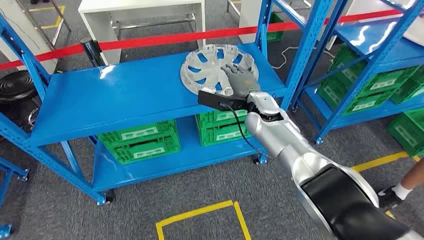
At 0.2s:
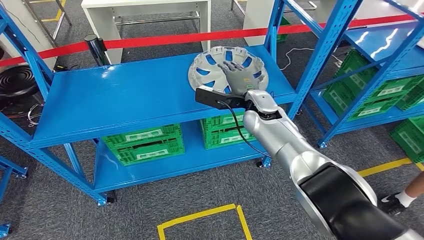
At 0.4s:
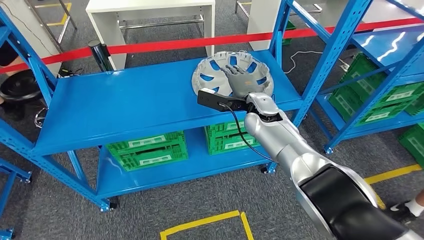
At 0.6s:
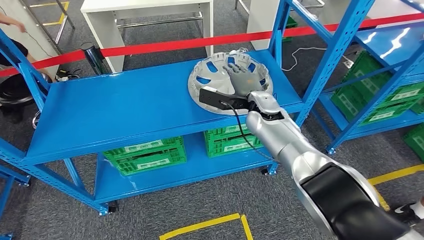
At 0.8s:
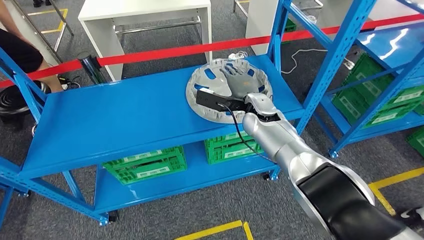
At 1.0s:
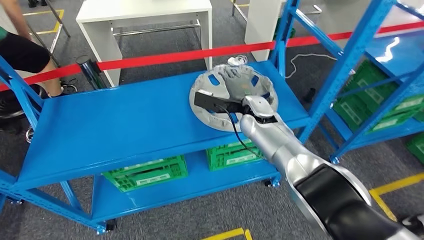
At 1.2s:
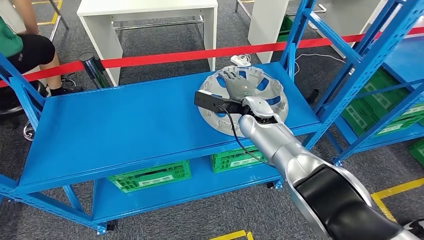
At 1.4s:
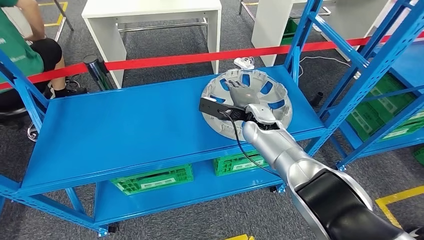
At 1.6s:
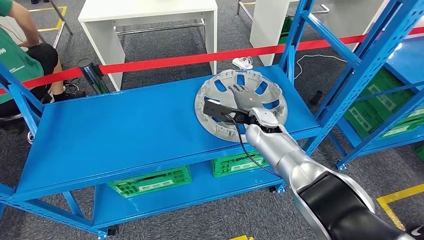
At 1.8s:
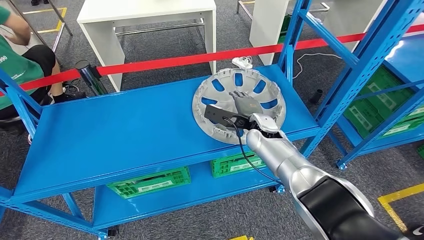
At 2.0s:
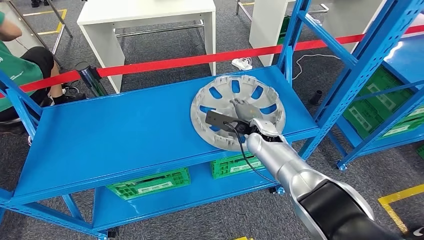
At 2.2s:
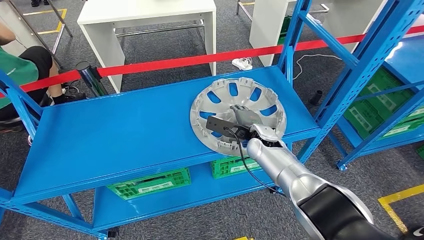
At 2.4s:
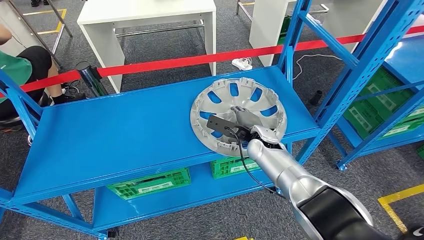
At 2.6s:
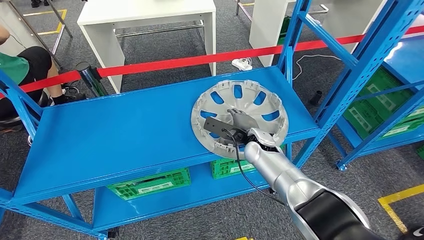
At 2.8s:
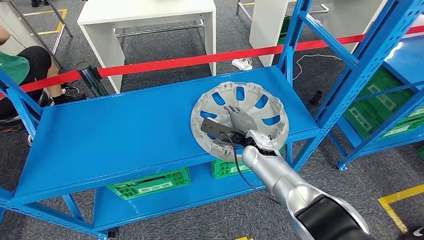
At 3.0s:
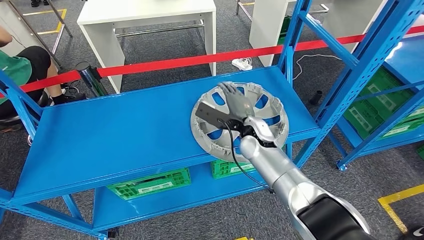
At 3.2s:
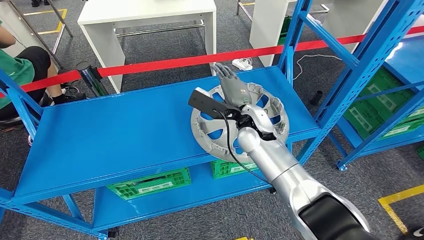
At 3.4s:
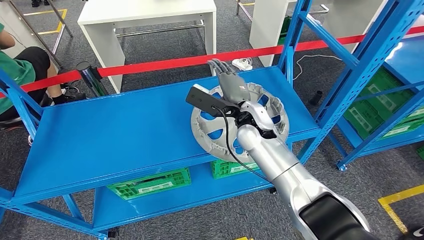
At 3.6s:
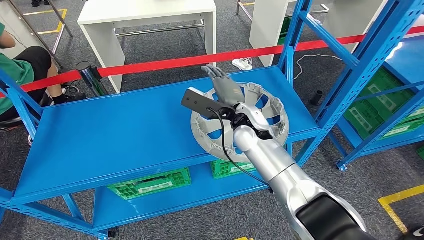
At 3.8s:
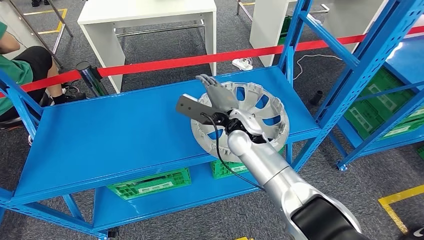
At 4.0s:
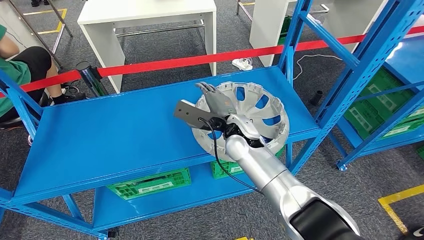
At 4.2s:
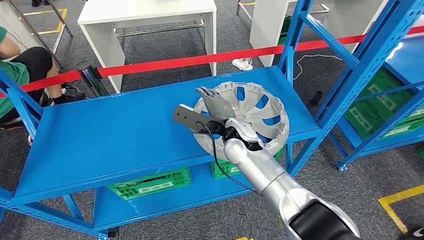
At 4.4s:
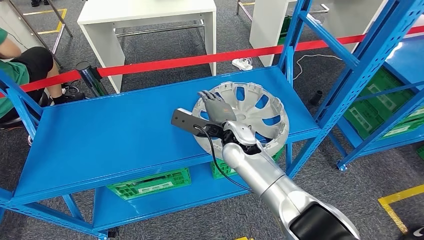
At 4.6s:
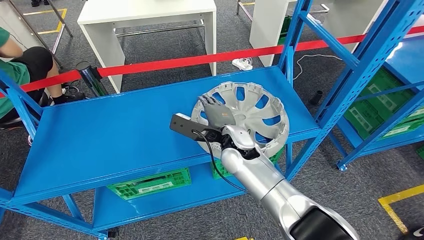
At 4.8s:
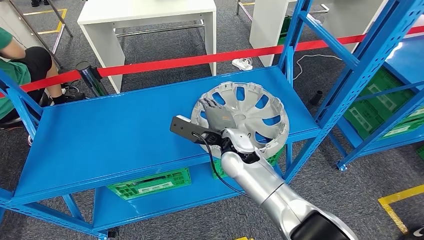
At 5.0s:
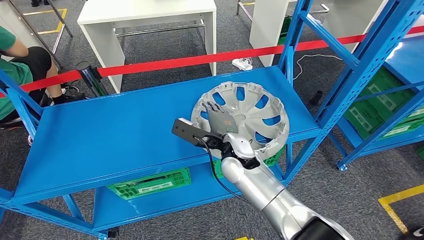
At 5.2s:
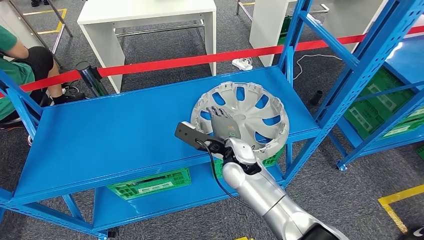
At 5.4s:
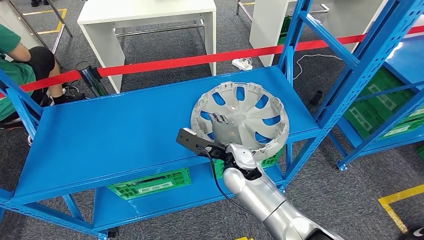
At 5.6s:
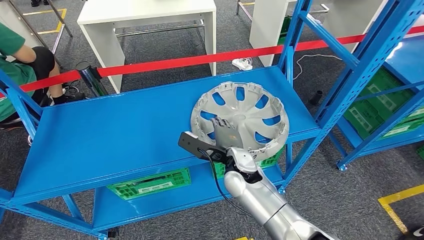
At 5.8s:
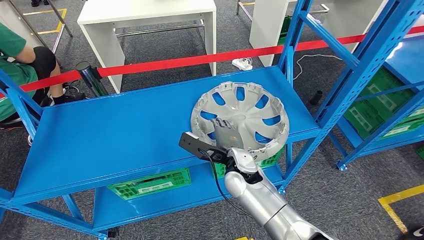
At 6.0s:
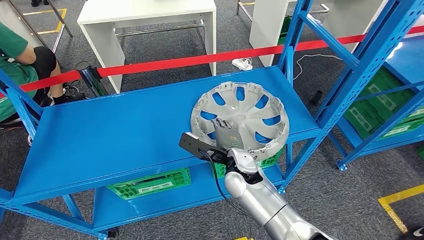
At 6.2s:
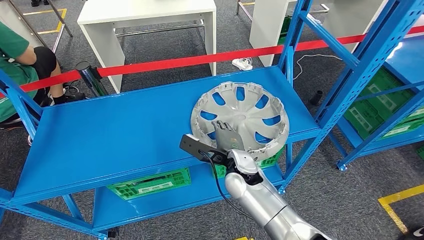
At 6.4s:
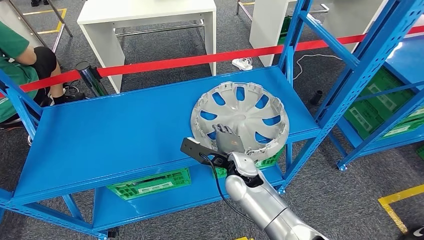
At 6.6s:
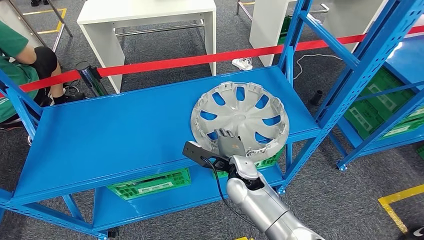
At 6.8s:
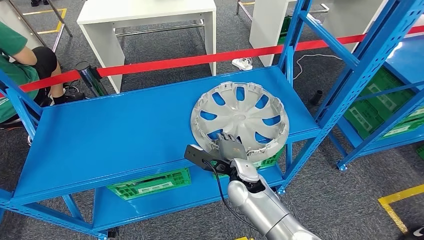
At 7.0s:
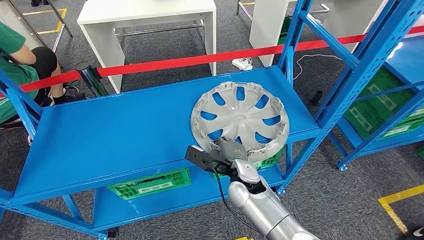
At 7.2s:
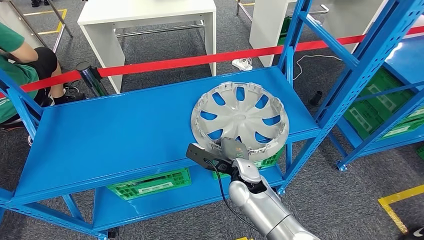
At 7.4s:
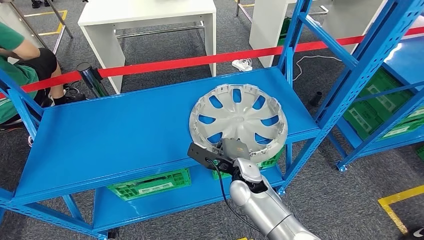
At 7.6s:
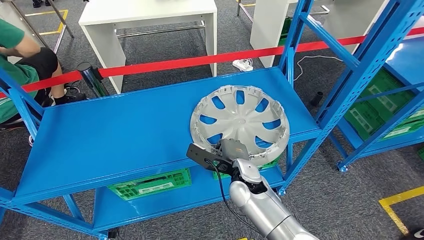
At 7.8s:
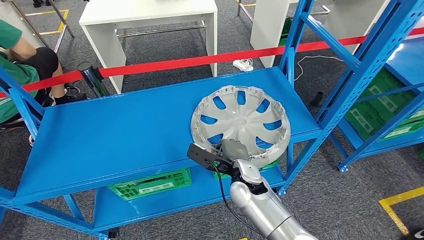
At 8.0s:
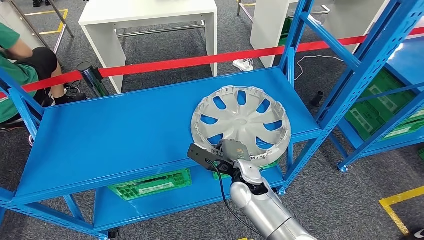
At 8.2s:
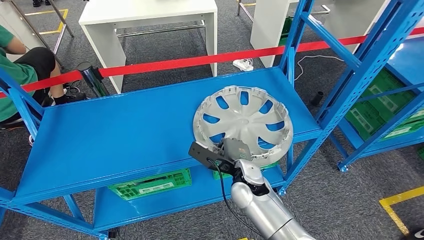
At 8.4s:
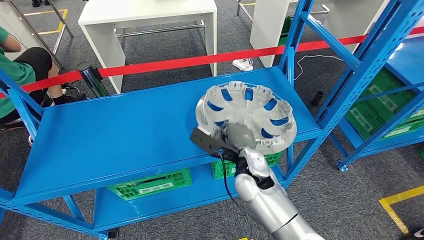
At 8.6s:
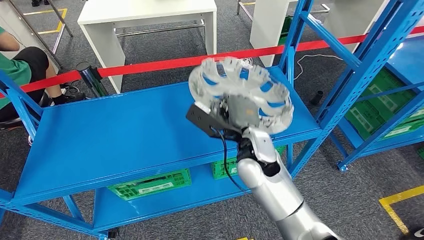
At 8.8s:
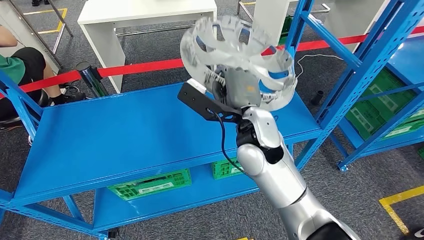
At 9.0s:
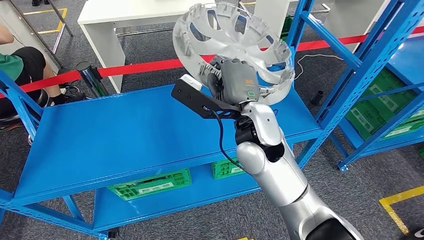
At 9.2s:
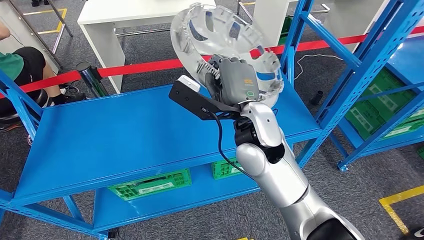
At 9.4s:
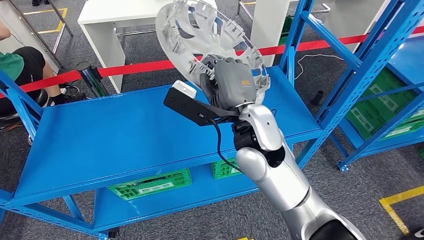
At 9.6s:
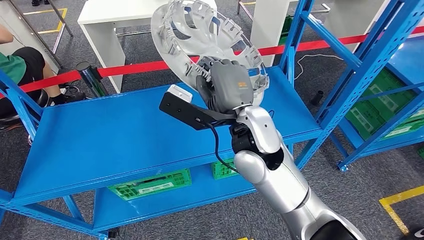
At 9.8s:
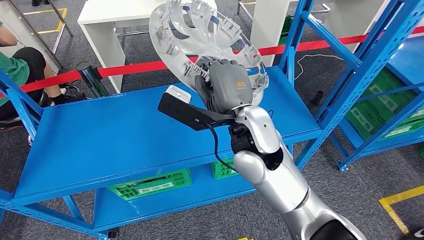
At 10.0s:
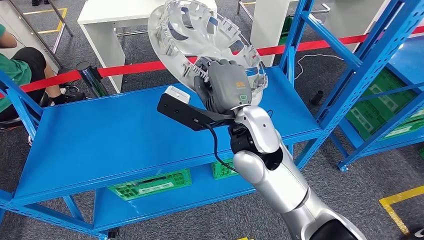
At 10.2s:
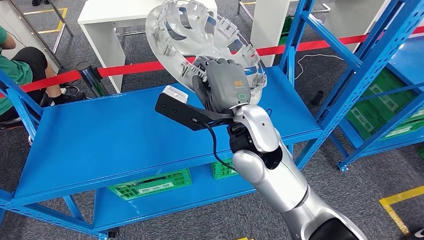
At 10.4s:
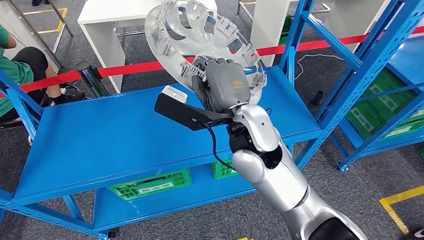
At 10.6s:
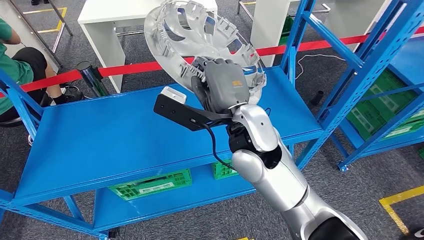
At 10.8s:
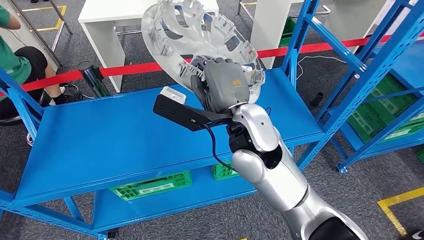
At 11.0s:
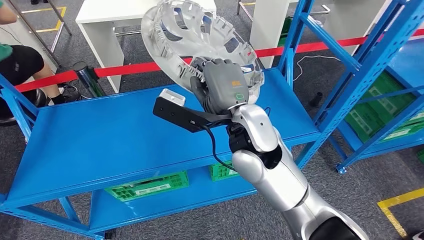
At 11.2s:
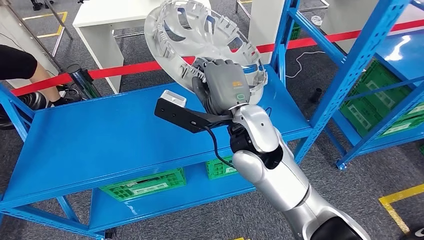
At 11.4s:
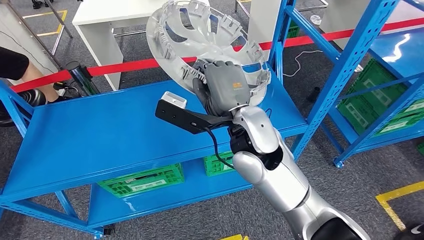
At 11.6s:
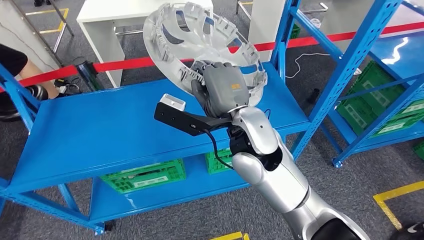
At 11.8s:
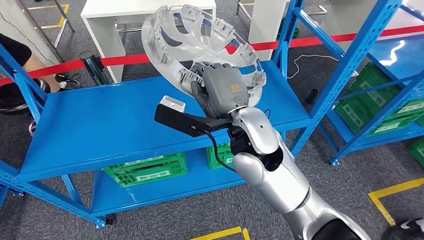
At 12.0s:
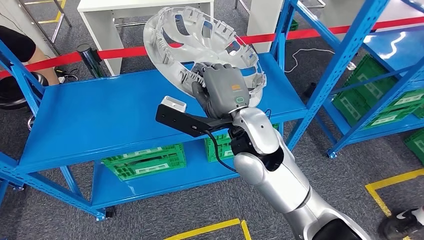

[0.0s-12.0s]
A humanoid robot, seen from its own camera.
Step, 0.0s to 9.8s: Pick up the small component from the shelf.
3.0s to 4.4s: The right hand heads to the left, covering about 5 cm.
4.4s to 6.0s: The right hand goes about 5 cm backward.
6.0s to 7.6s: The hands stay close to where they were, moving slightly.
9.0s to 10.4s: The hands make only small movements.

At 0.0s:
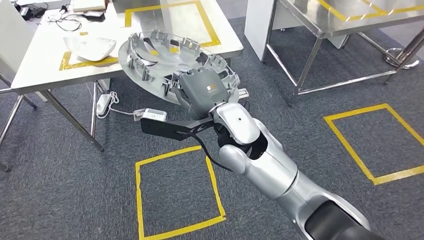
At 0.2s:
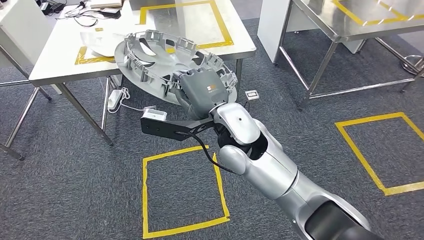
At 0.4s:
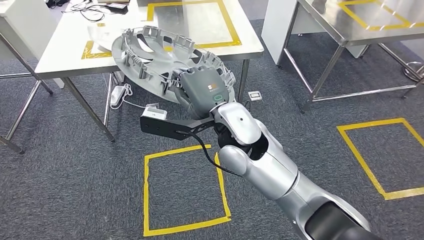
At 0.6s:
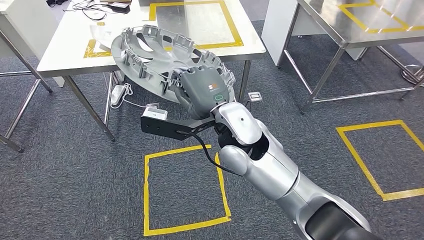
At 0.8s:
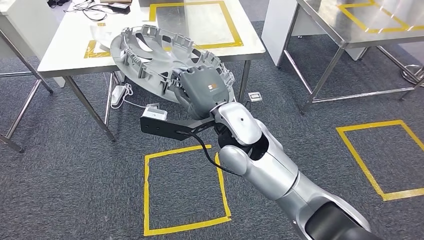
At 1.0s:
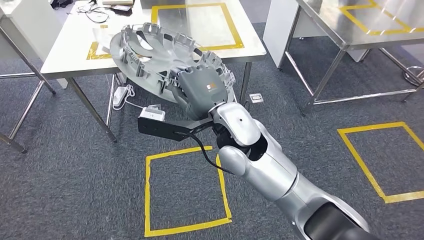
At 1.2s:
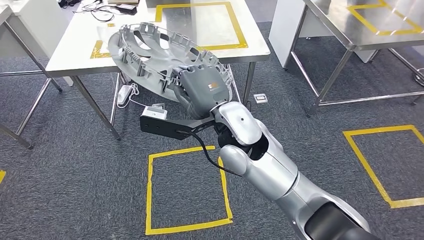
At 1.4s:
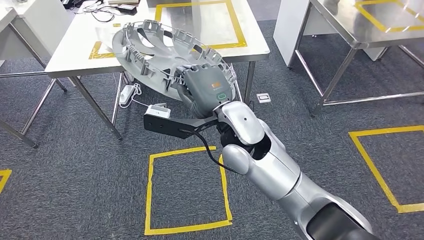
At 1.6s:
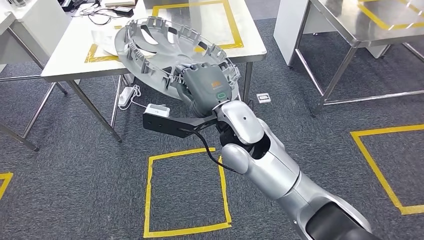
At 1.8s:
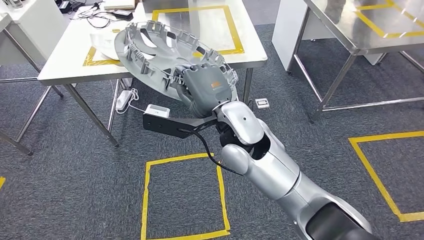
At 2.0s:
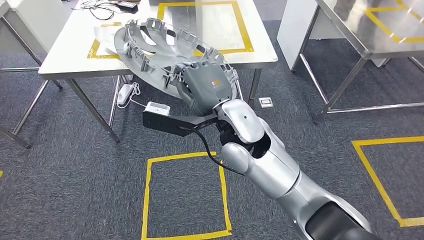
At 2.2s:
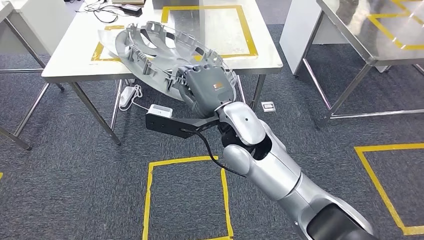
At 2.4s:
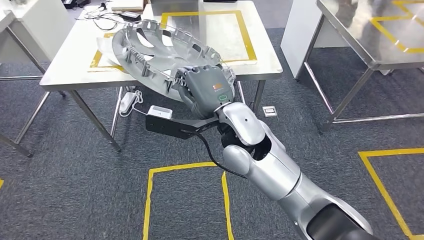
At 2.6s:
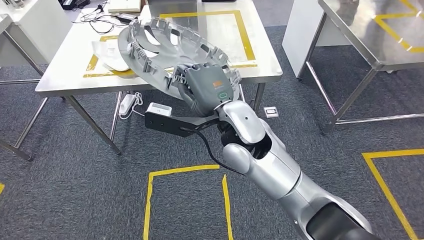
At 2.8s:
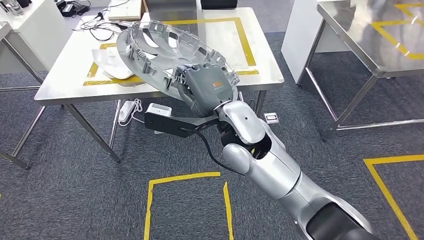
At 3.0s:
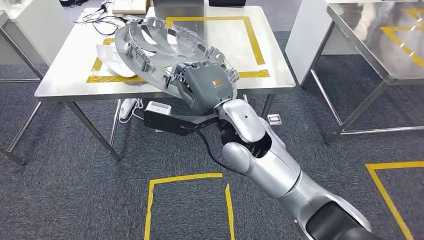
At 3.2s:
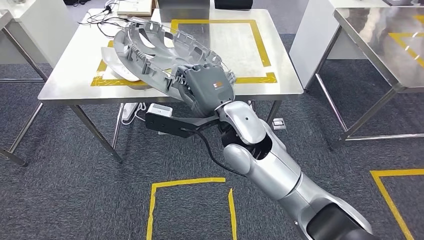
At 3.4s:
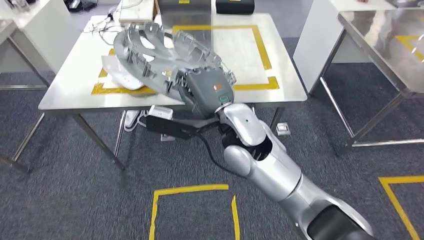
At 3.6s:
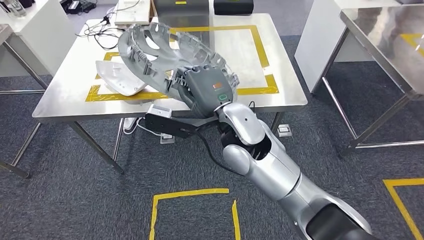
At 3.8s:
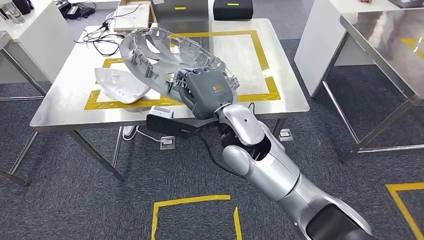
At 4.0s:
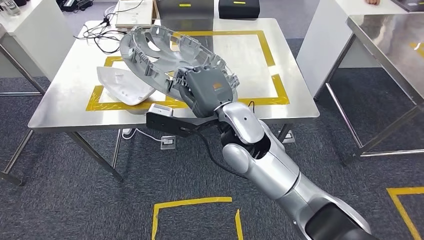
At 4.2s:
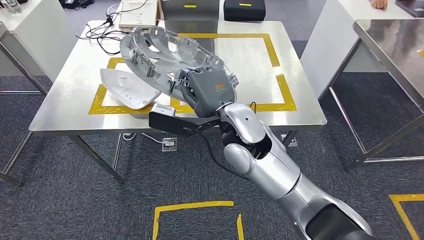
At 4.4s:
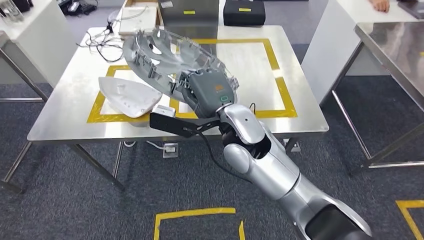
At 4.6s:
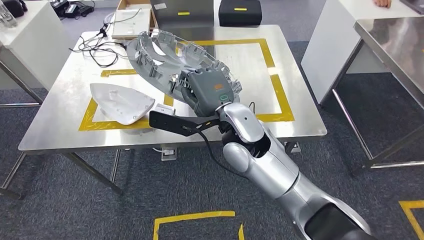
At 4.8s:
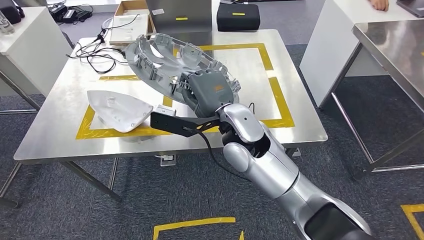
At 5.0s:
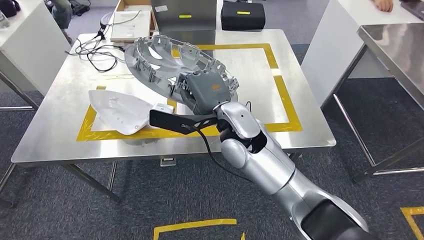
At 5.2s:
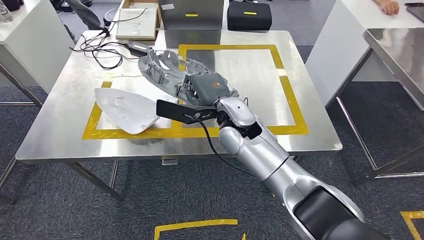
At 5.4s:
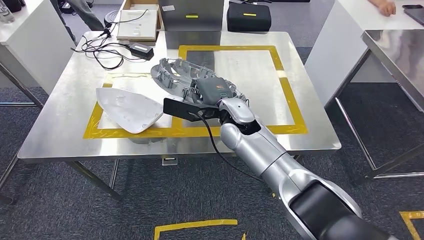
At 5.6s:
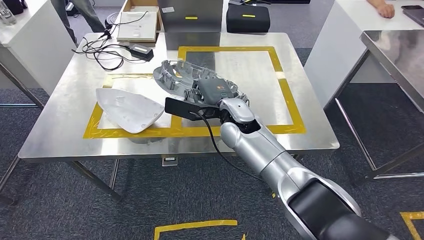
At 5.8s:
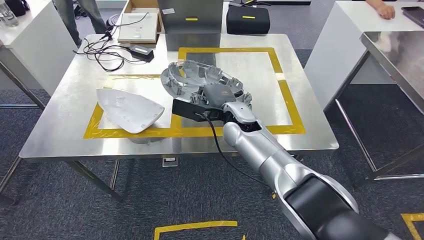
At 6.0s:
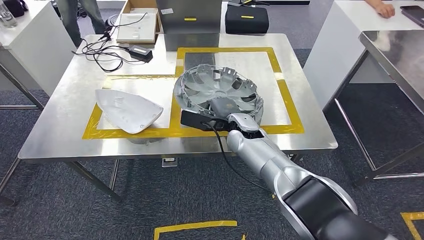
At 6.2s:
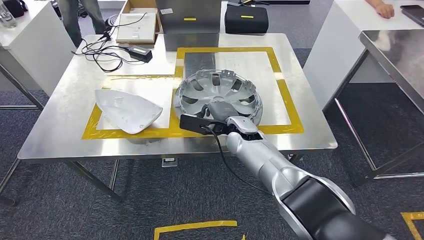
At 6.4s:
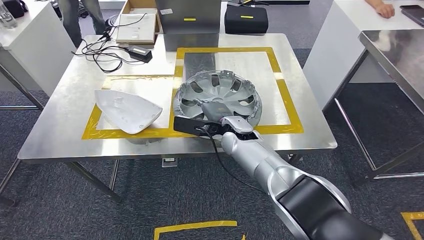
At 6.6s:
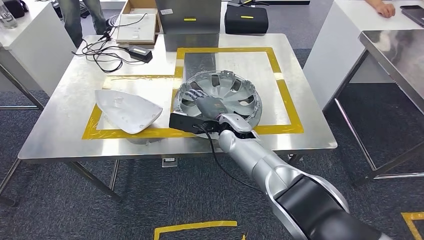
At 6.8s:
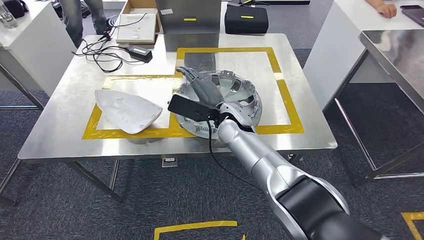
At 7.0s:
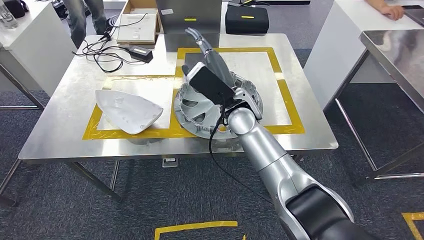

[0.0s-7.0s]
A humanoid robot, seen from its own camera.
Step, 0.0s to 4.2s: Move the small component to the workbench.
5.6s to 7.0s: The right hand goes downward and returns, approximately 10 cm each way.
